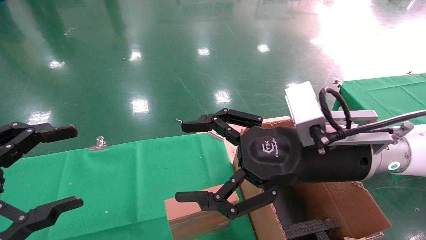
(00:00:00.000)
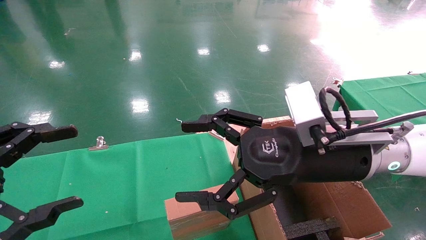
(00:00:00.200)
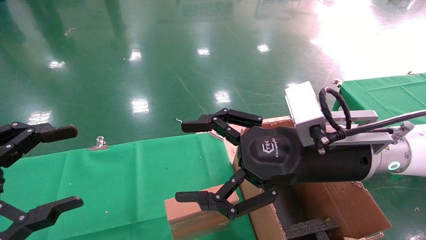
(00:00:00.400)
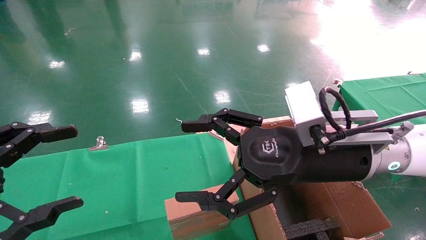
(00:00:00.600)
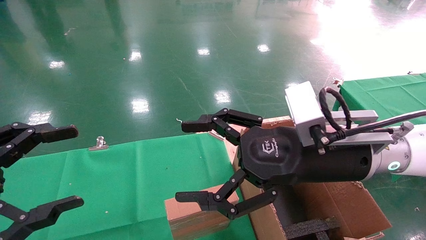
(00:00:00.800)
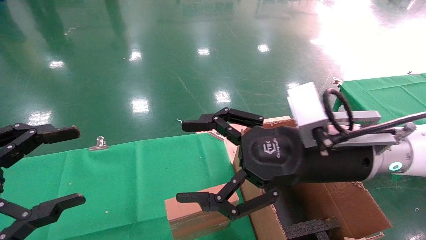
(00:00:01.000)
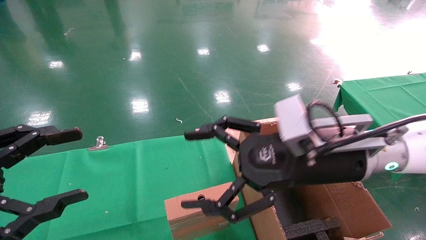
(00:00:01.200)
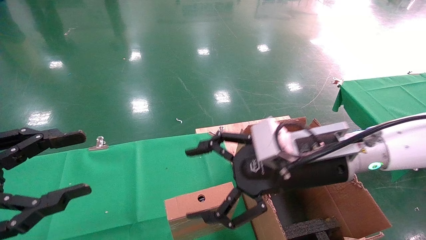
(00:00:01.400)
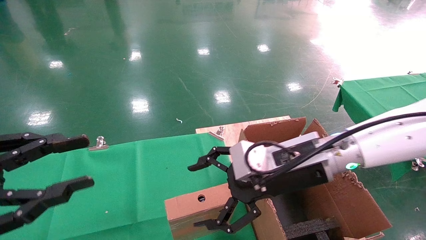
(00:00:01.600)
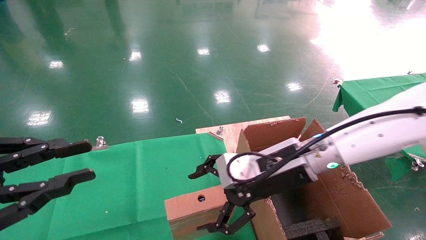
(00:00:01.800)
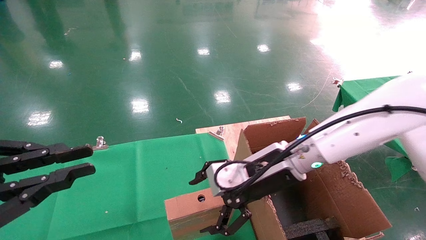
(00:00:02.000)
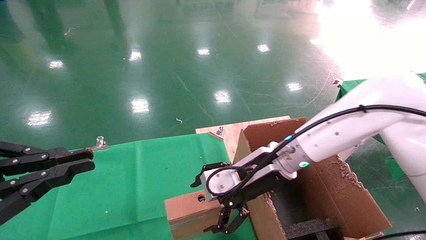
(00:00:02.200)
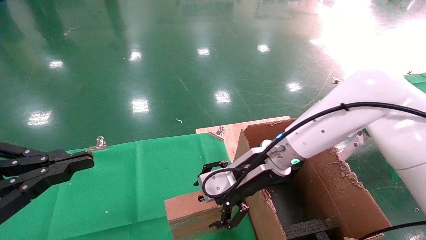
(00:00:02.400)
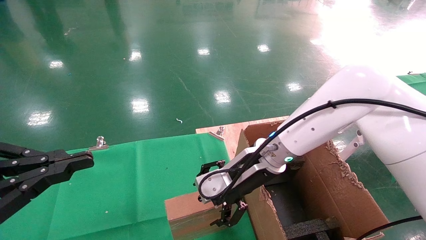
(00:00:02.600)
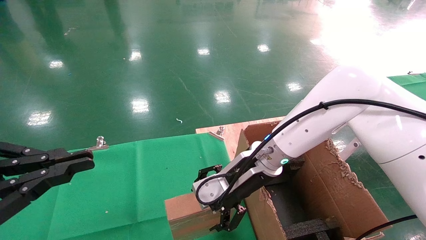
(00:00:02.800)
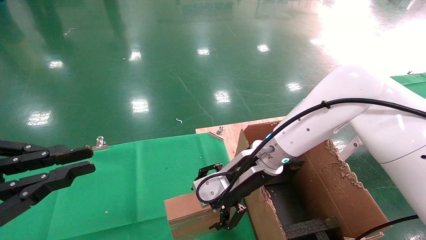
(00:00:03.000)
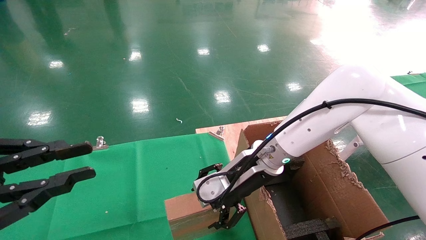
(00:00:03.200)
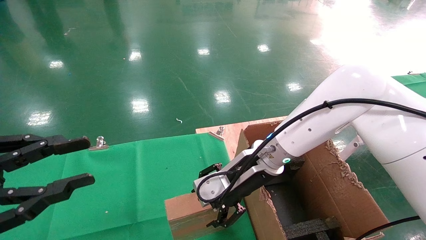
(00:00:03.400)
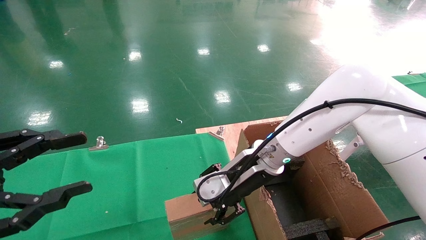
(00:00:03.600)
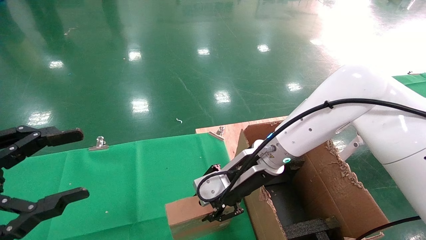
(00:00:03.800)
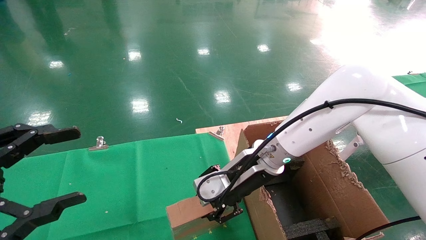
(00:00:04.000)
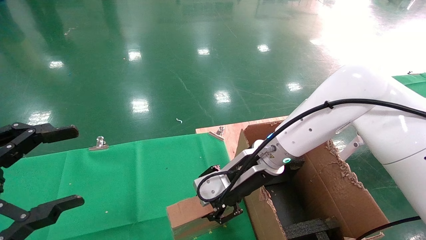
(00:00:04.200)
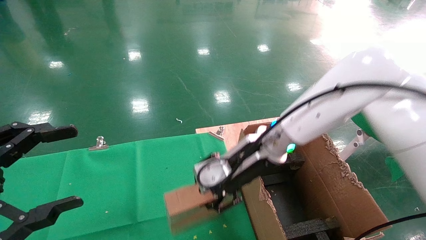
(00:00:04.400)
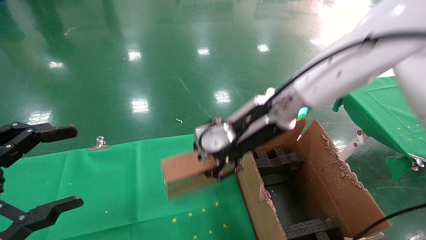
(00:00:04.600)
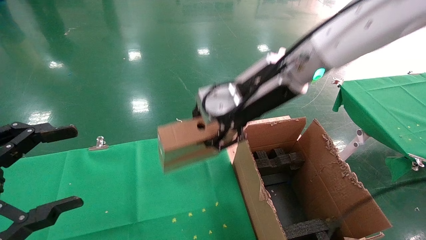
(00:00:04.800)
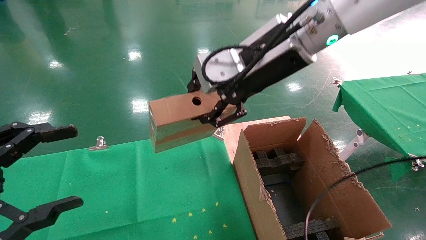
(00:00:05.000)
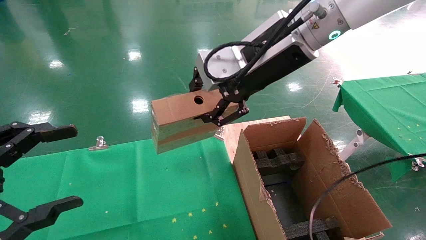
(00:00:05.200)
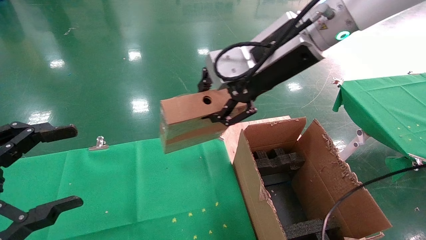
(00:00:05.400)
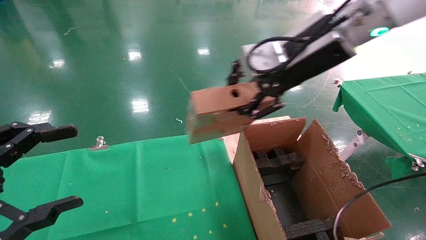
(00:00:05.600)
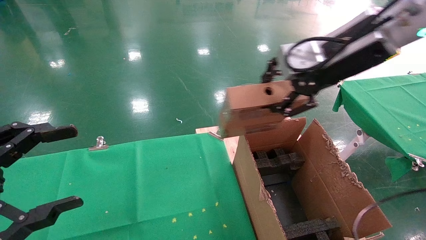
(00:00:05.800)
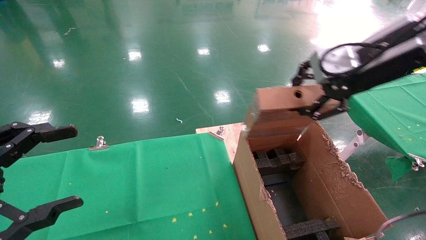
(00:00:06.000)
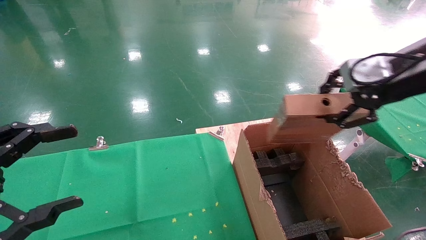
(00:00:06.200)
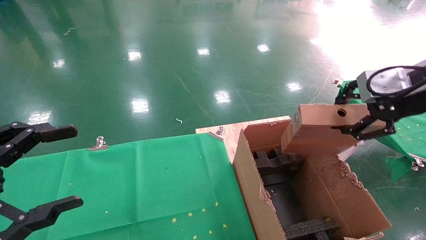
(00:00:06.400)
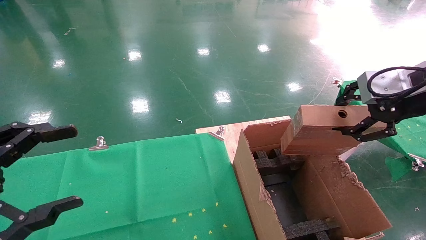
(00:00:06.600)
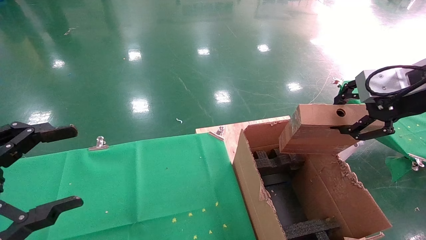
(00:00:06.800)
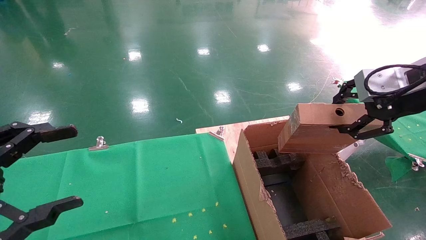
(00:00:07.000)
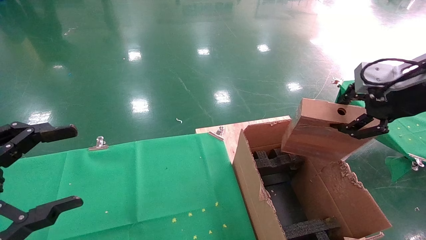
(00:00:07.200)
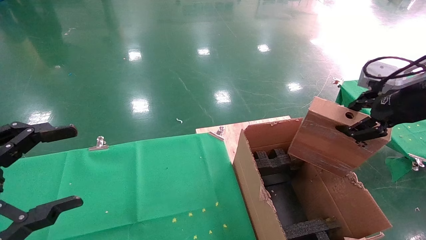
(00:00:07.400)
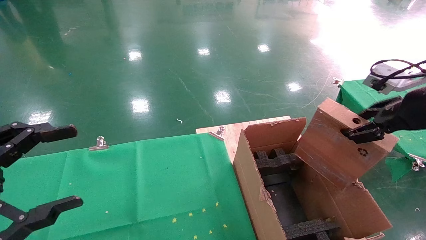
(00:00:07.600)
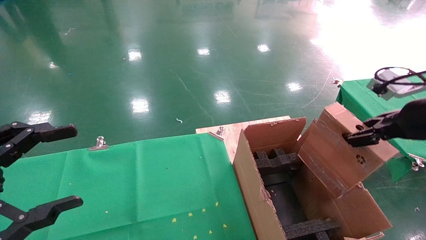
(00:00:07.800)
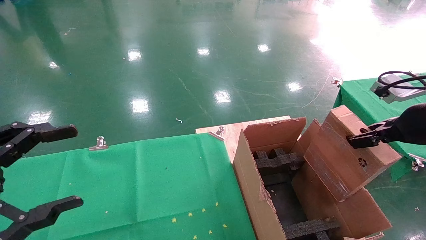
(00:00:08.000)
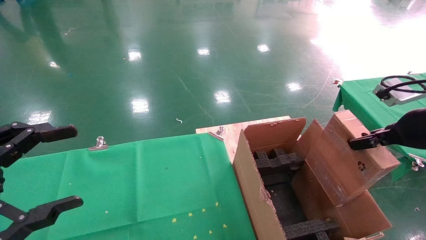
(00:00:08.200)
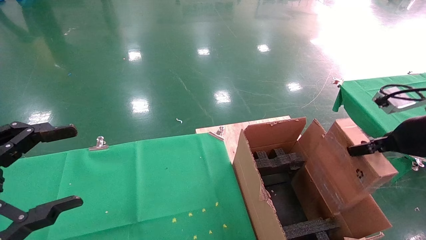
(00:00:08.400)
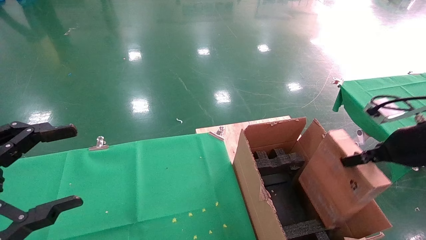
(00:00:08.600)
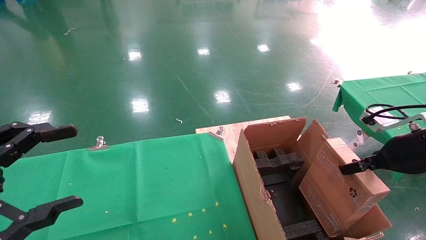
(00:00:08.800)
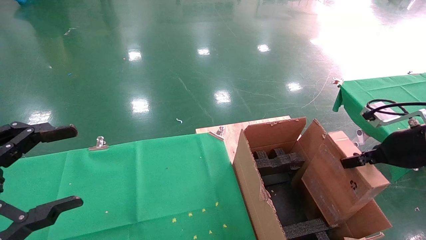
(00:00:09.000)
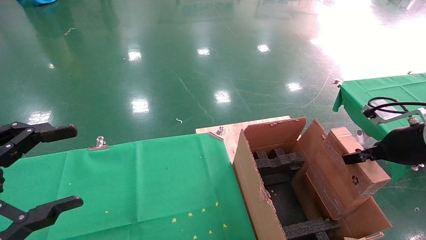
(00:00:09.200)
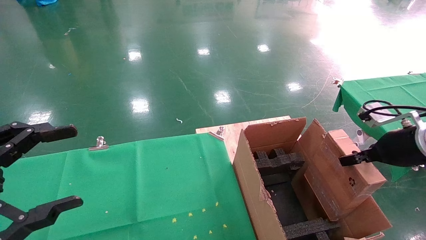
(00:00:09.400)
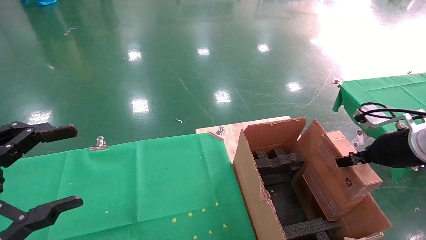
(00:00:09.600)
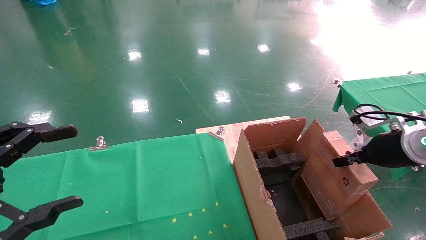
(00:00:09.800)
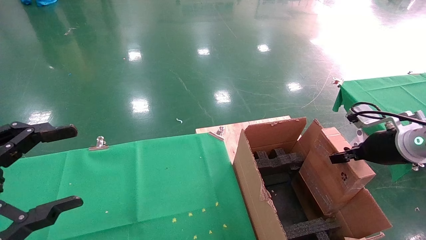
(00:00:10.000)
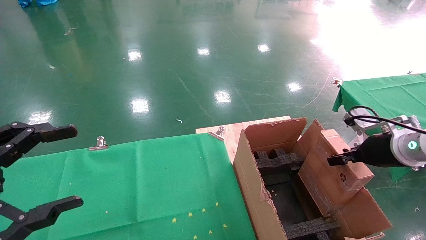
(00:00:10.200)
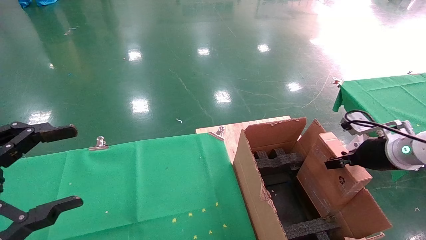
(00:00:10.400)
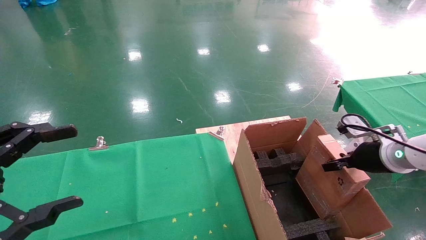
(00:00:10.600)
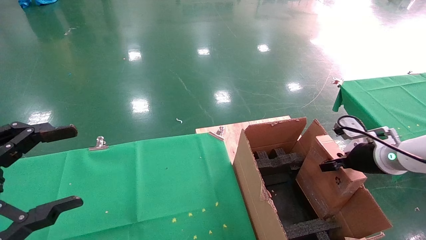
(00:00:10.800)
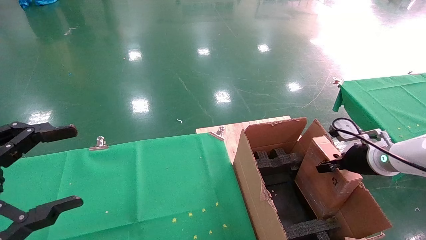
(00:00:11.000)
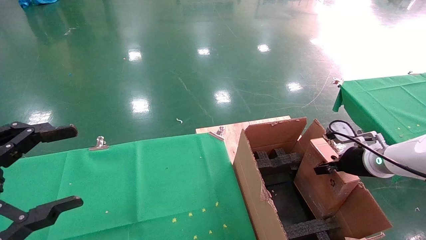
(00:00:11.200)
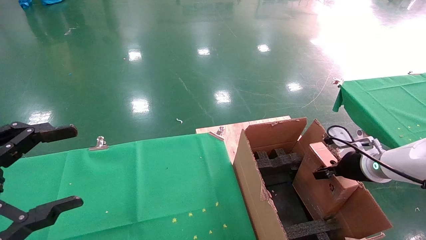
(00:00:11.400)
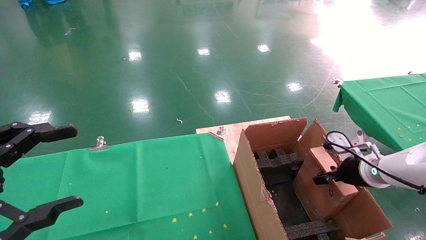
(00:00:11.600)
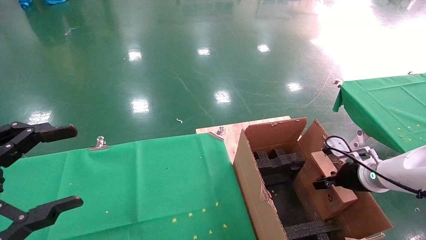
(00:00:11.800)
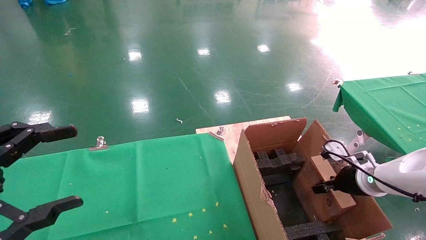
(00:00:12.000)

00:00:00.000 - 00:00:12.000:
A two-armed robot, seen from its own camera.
Task of the whole recording: using a robotic arm to pick up a cardboard box and palace it the carton.
Step, 00:00:01.200 - 00:00:03.800: Pick up the mouse and the power cord paper box.
00:00:00.000 - 00:00:01.600: The left gripper closes. The right gripper changes place by some 5 cm.
00:00:01.600 - 00:00:03.000: The right gripper travels forward and to the left by about 10 cm. Meanwhile the left gripper closes up.
00:00:03.000 - 00:00:04.400: The right gripper heads upward, covering approximately 5 cm, and closes its fingers. Meanwhile the left gripper opens up.
00:00:04.400 - 00:00:06.000: The right gripper moves to the right, upward and backward, roughly 25 cm.
00:00:06.000 - 00:00:07.600: The right gripper moves to the right and downward, some 10 cm.
00:00:07.600 - 00:00:09.000: The right gripper moves downward, some 10 cm.
00:00:09.000 - 00:00:10.400: The right gripper heads downward and forward, covering about 10 cm.
00:00:10.400 - 00:00:12.000: The right gripper is displaced downward by about 10 cm.

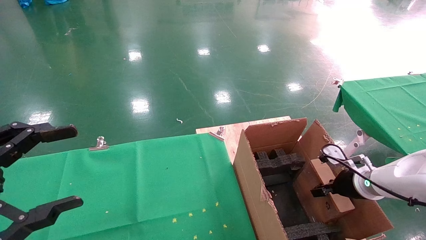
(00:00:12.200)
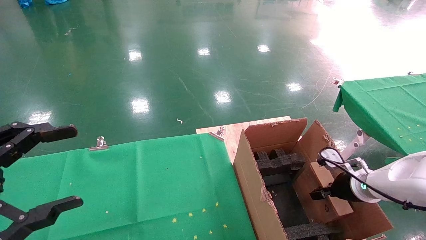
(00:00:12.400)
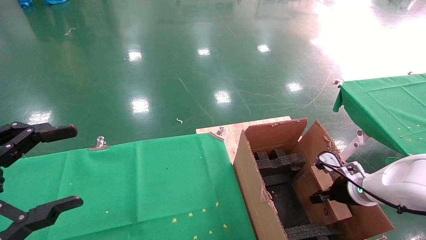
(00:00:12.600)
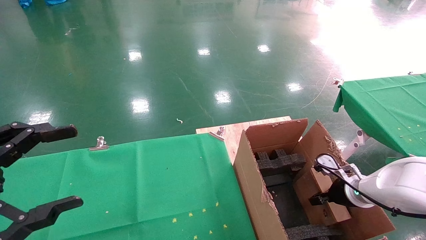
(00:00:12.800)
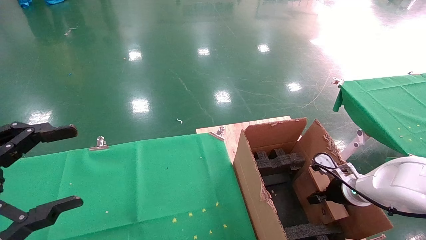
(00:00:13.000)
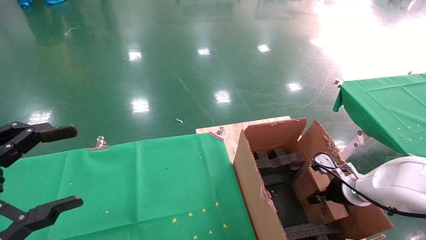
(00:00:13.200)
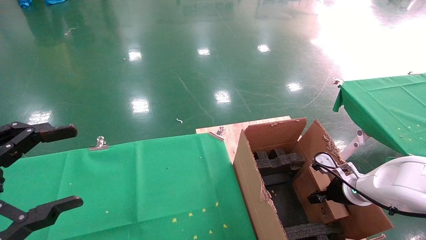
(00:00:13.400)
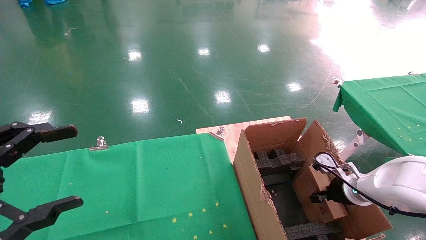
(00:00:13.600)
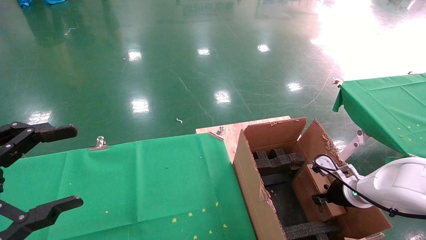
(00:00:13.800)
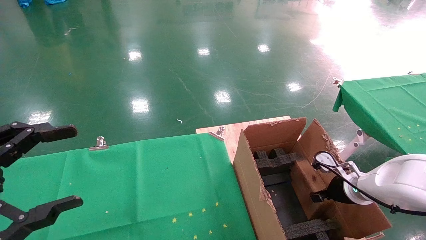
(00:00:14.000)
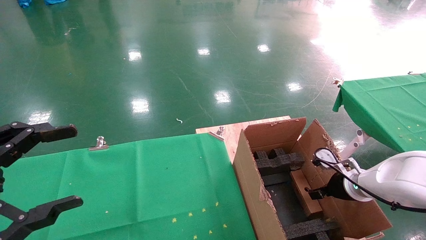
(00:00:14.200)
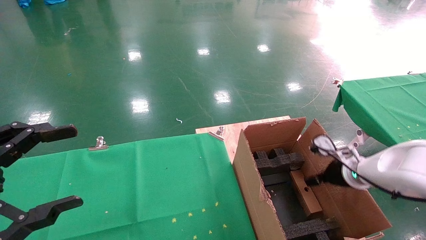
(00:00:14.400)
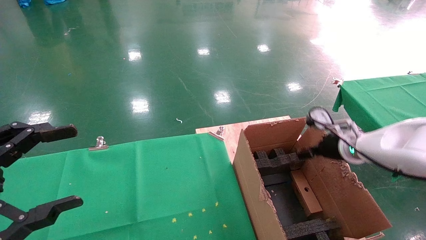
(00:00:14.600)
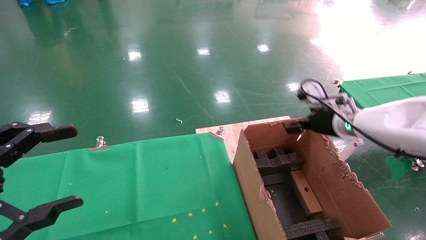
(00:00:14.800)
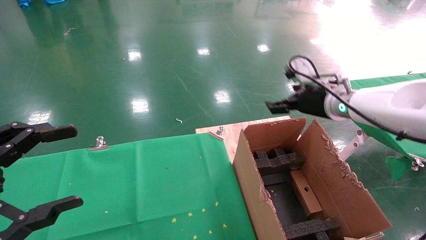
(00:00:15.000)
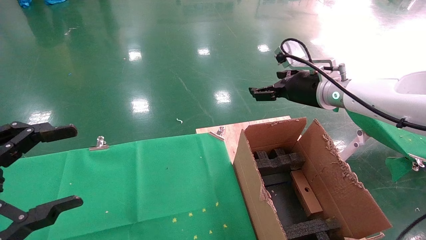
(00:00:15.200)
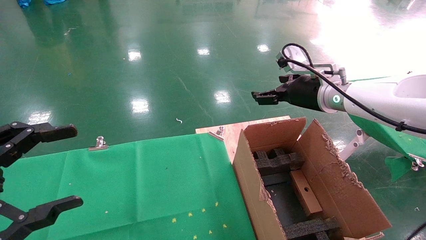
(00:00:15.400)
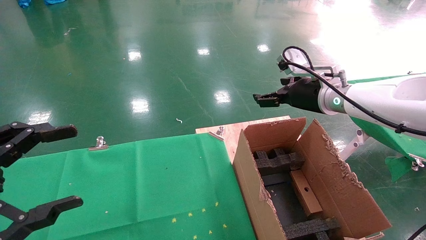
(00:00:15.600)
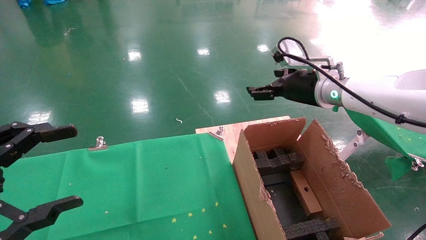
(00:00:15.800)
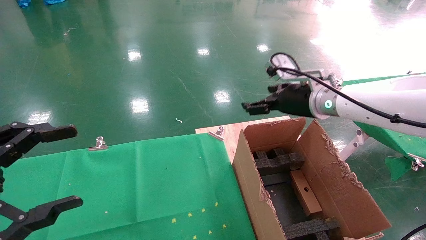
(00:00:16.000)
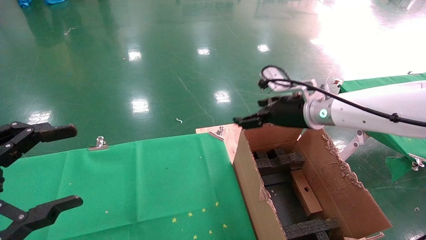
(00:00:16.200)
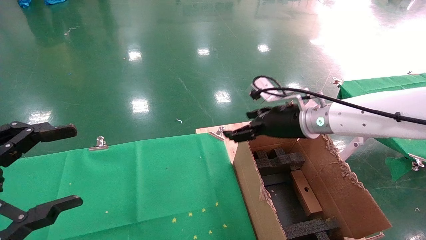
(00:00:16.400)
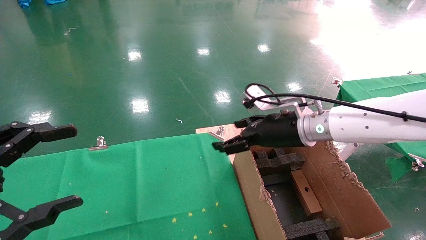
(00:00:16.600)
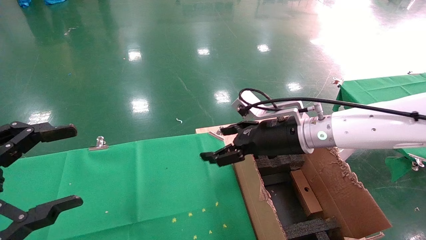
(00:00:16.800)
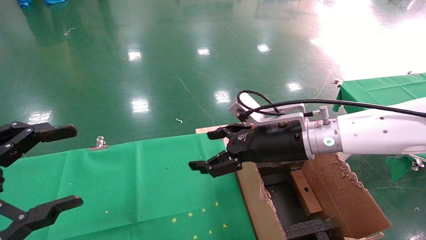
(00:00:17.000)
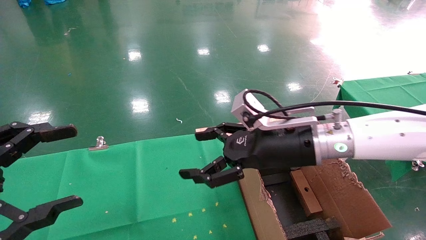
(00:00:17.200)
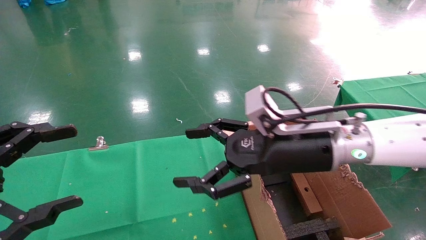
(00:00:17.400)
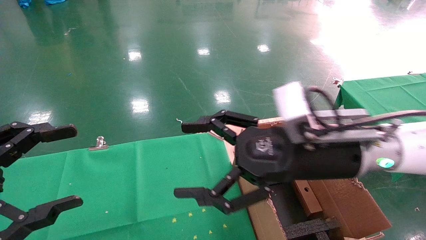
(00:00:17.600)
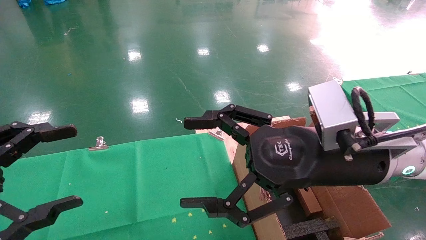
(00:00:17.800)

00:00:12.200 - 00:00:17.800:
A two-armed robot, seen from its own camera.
Task of the whole recording: using a robotic arm to pick up a cardboard box and palace it the carton.
Step, 00:00:12.200 - 00:00:14.200: Place the mouse and the power cord paper box into the container.
00:00:12.200 - 00:00:13.600: There are only small adjustments of the grippers.
00:00:13.600 - 00:00:15.000: The right gripper travels upward by about 20 cm, and opens up.
00:00:15.000 - 00:00:16.400: The right gripper goes some 5 cm to the left.
00:00:16.400 - 00:00:17.800: The right gripper goes approximately 15 cm backward.
